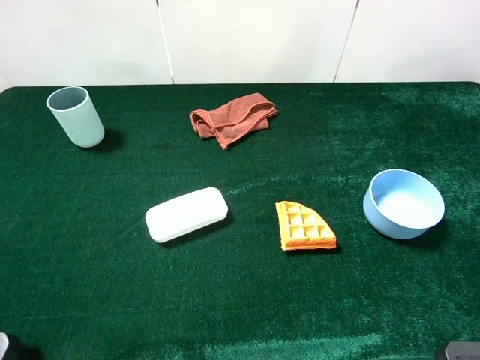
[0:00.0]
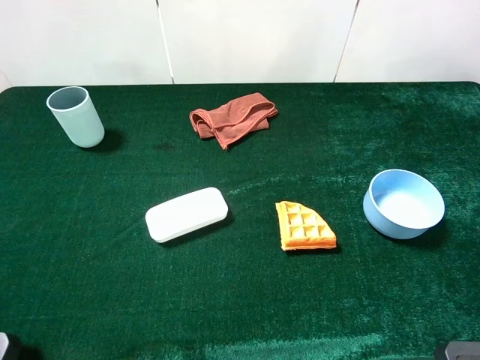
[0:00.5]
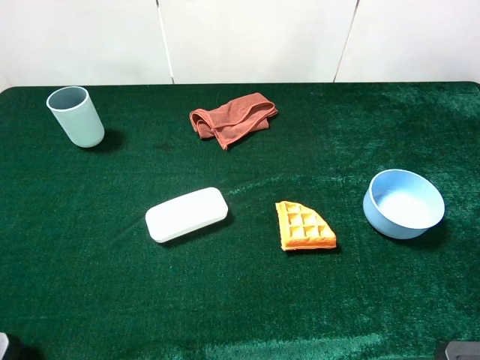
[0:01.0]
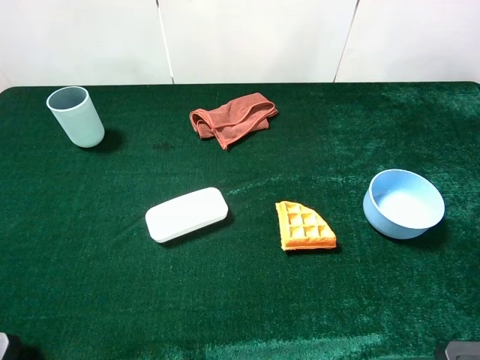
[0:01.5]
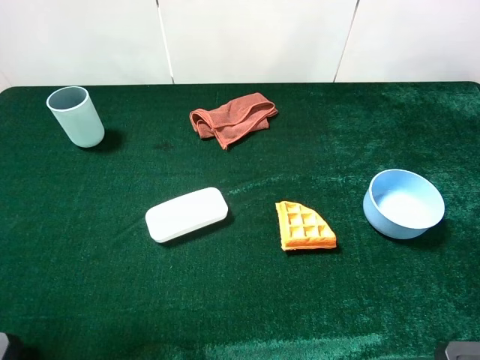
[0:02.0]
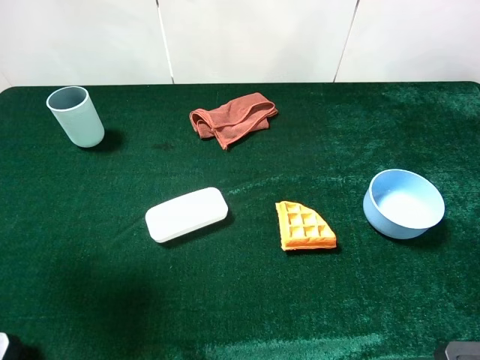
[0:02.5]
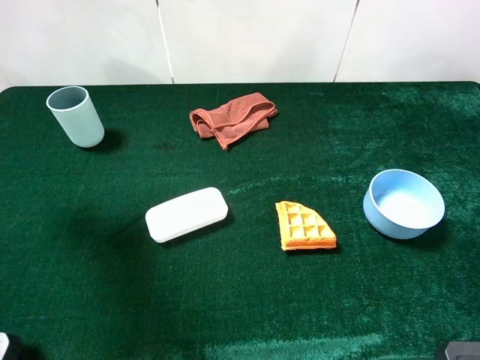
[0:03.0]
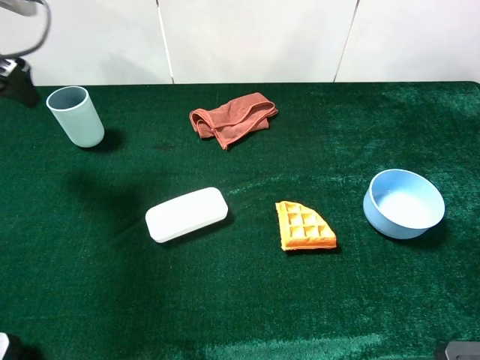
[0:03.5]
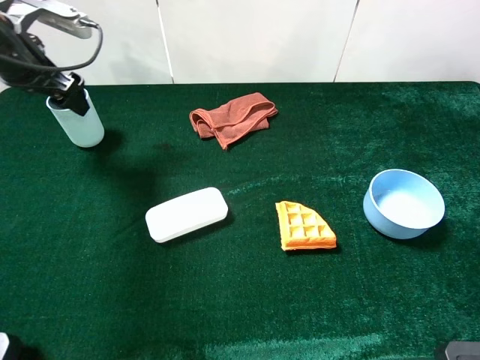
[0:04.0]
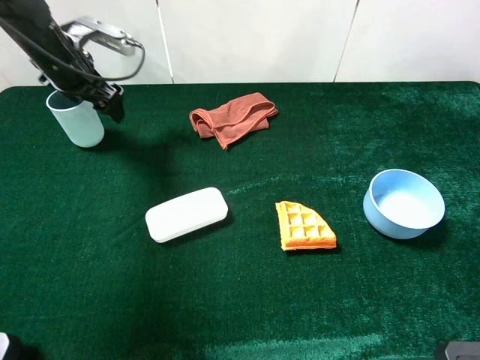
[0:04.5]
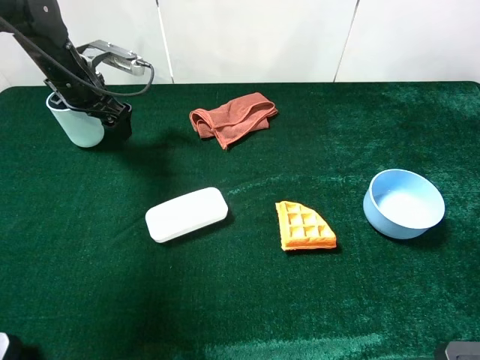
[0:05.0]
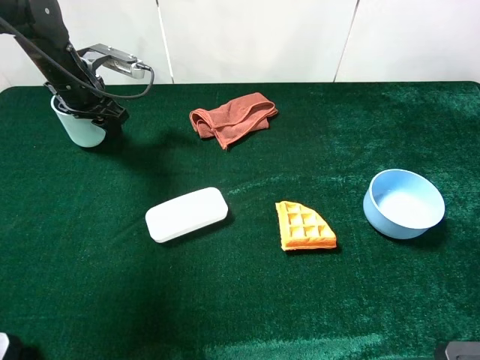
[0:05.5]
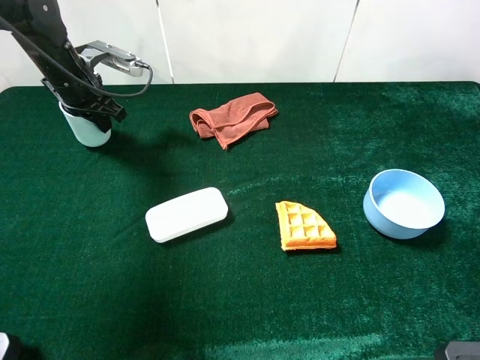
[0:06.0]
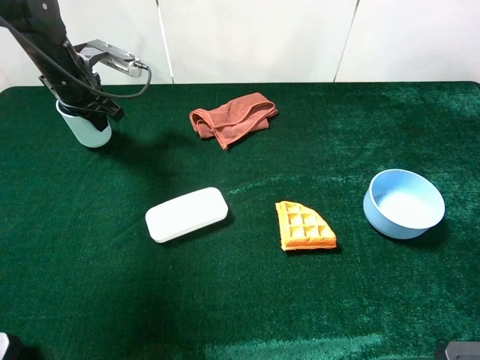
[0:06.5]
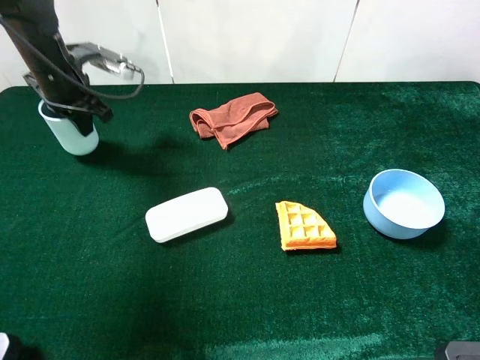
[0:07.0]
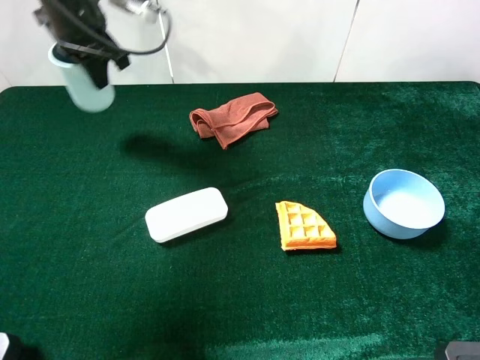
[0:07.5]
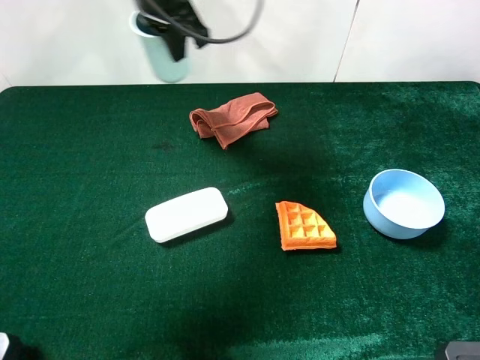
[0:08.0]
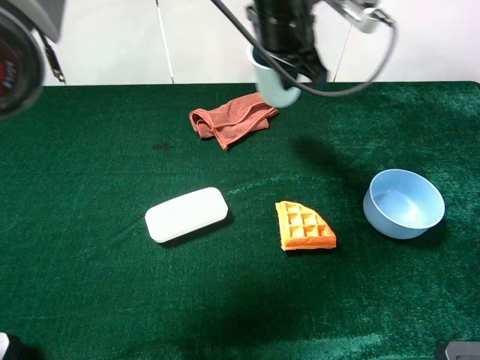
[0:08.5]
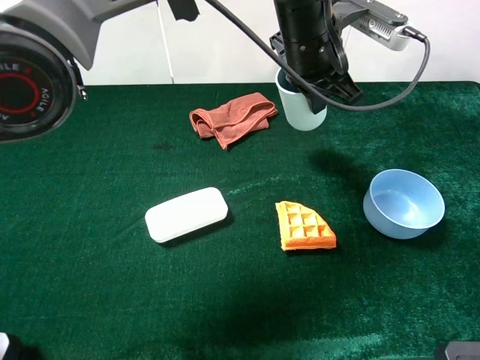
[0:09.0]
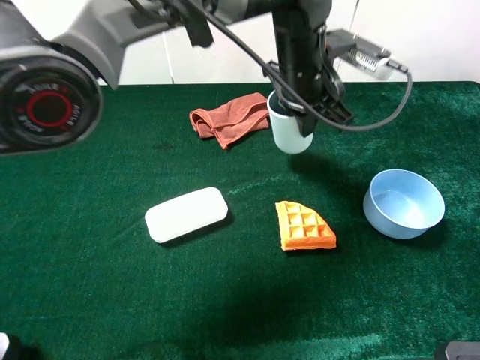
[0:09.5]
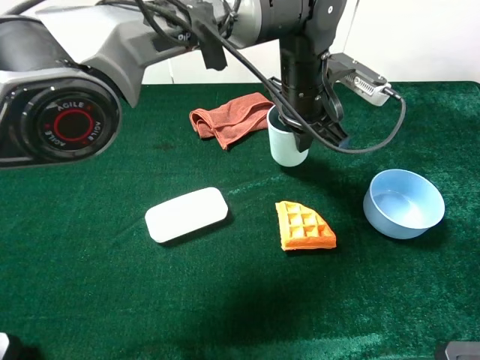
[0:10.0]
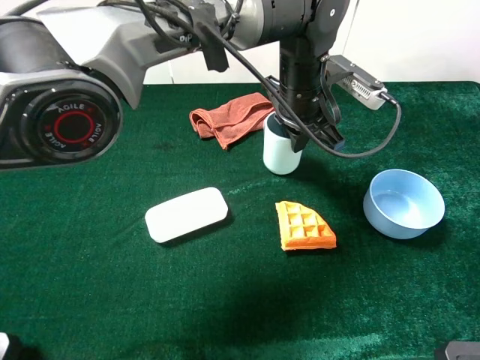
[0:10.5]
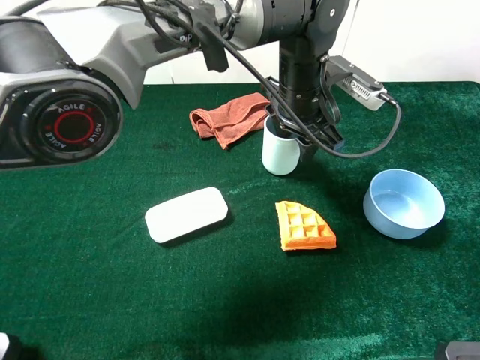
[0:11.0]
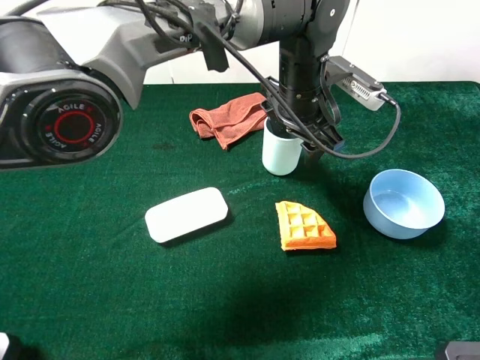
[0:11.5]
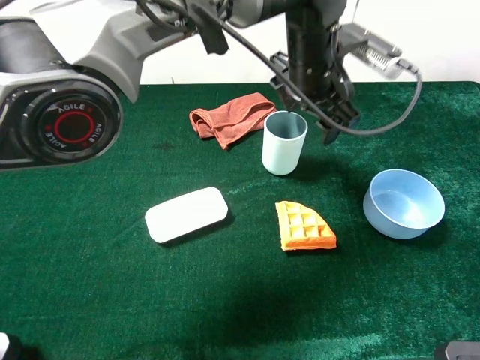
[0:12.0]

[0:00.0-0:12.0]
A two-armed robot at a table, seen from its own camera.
Task of the whole recording: the gripper move the object.
Step, 0:00.0 to 0:06.5: Grasp the cyan cup with the left gripper.
Step, 0:07.0 to 0:12.0: Place the cyan cup on the table with the left gripper.
0:02.0 to 0:04.0: The left gripper moves forward, about 30 cm.
0:04.0 to 0:06.0: The left gripper heads downward, covering about 10 cm, and closes its fingers.
0:06.0 to 0:08.0: The left gripper is displaced to the right and upward by approximately 25 cm.
0:08.0 to 0:10.0: The left gripper goes approximately 20 cm to the right and downward.
0:10.0 to 0:12.0: The left gripper opens up.

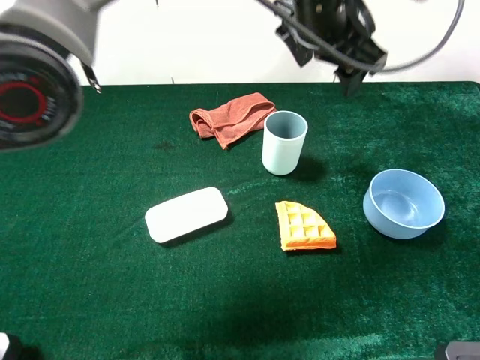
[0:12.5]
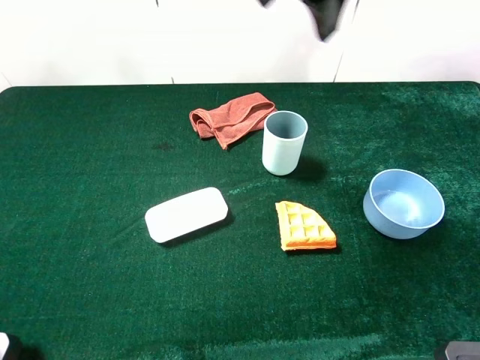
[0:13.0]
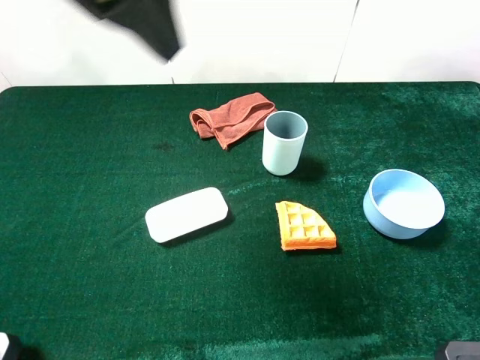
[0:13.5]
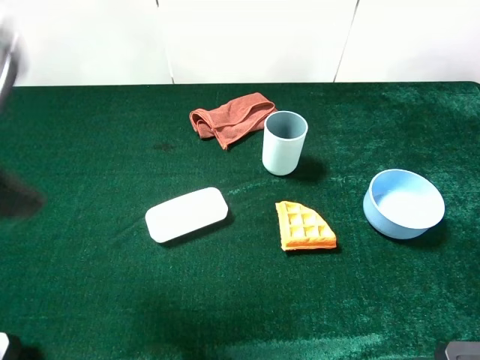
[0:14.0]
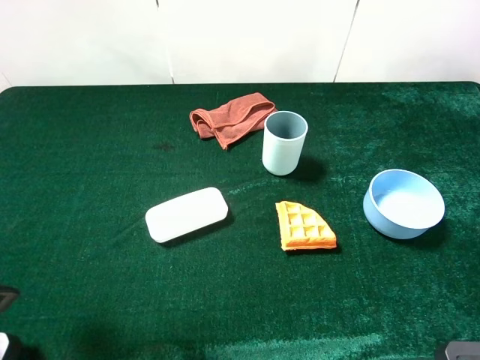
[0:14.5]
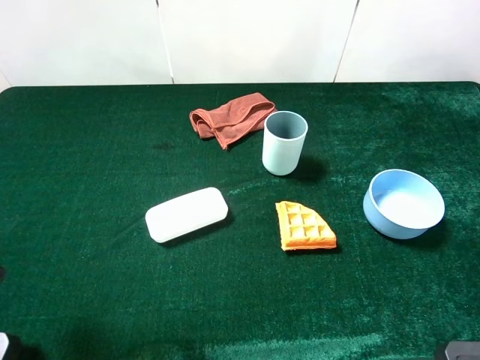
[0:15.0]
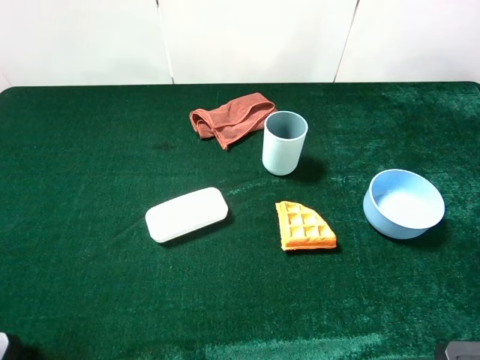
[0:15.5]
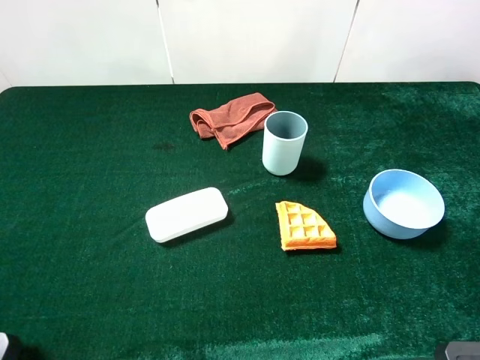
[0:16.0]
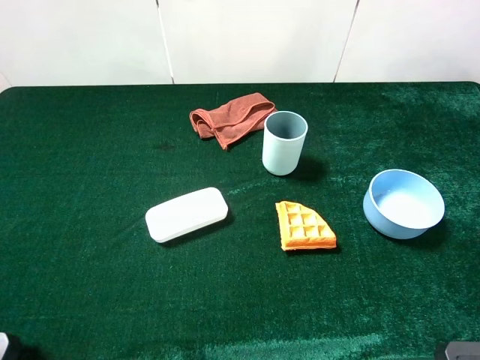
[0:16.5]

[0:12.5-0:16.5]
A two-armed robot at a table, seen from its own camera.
Task of the whole recording: the gripper move the object.
0:12.5 to 0:14.5: The left gripper moves to the left and backward, about 40 cm.
